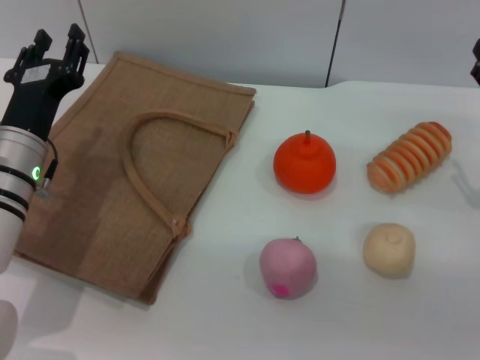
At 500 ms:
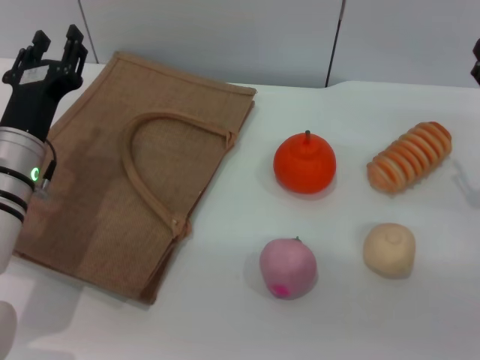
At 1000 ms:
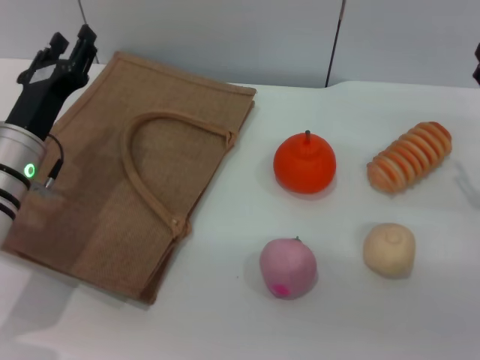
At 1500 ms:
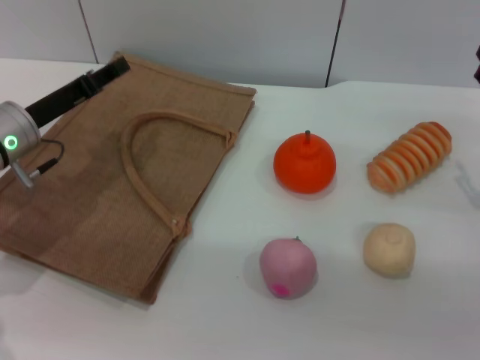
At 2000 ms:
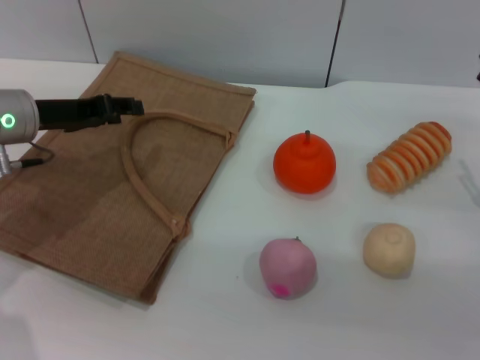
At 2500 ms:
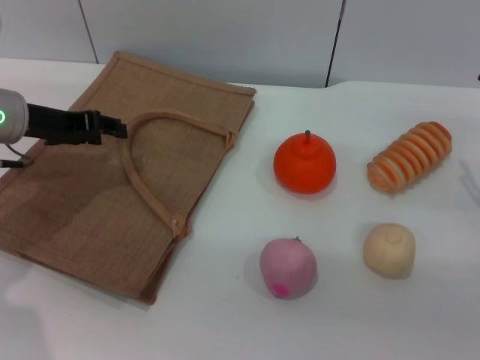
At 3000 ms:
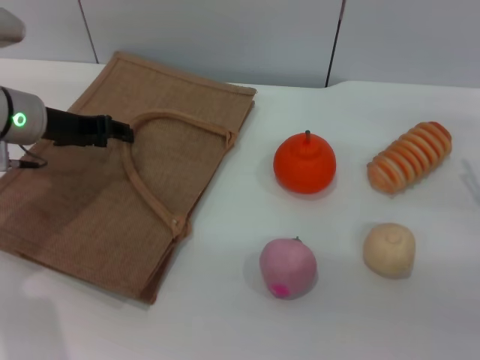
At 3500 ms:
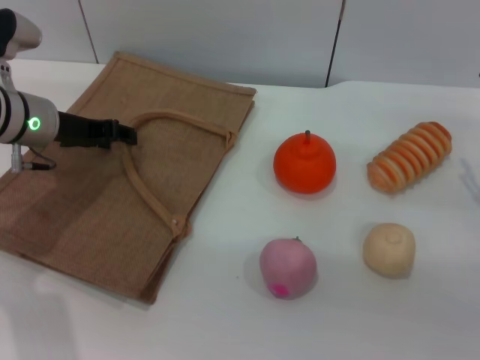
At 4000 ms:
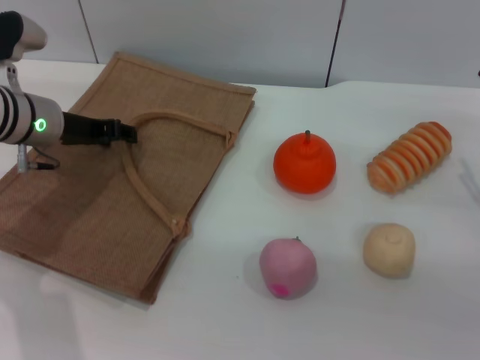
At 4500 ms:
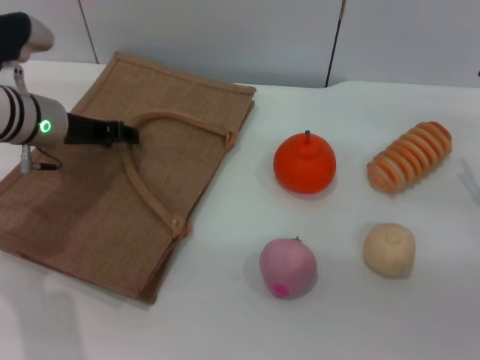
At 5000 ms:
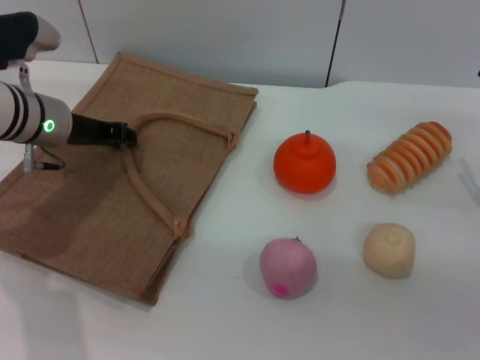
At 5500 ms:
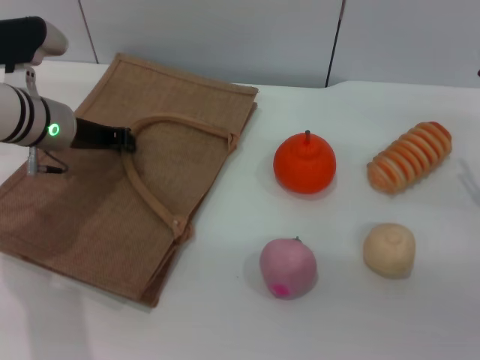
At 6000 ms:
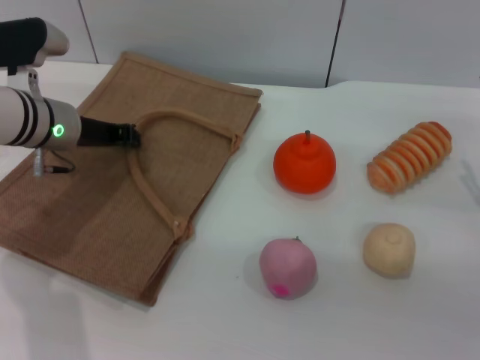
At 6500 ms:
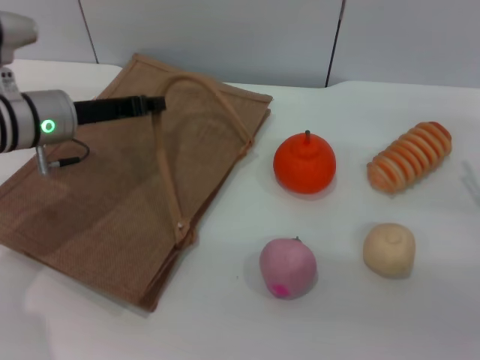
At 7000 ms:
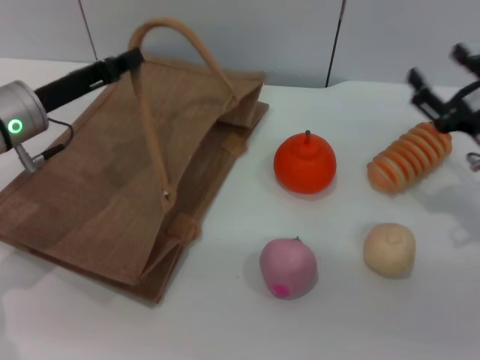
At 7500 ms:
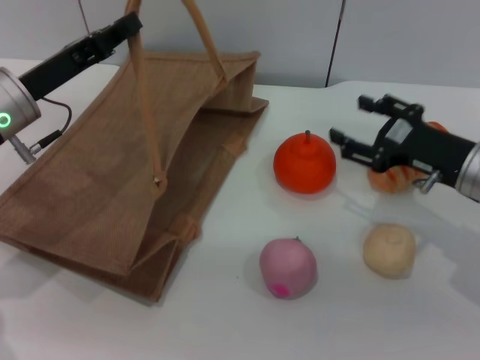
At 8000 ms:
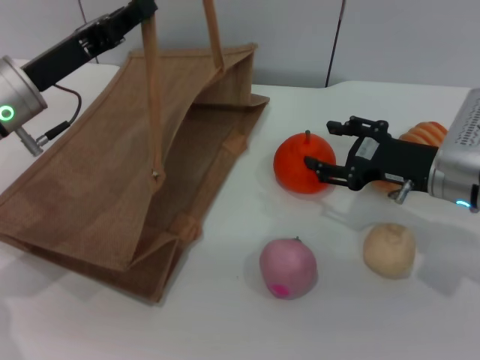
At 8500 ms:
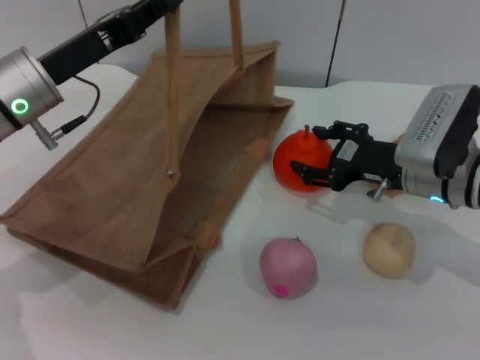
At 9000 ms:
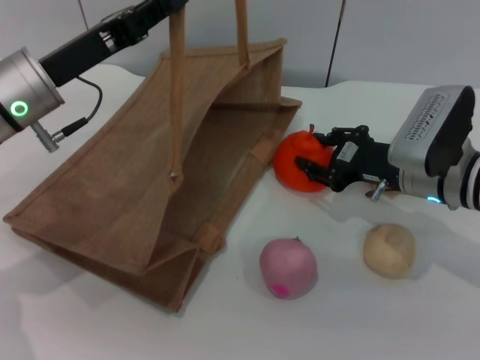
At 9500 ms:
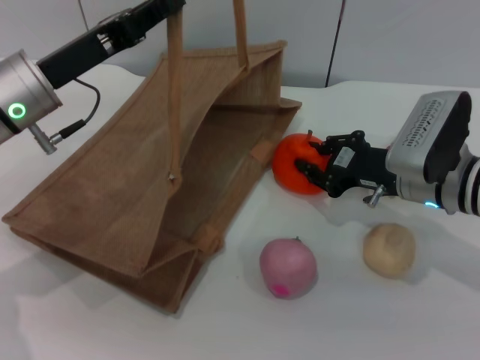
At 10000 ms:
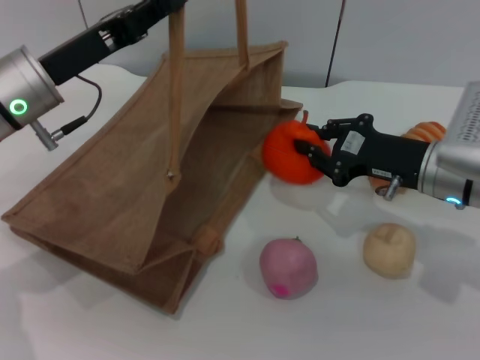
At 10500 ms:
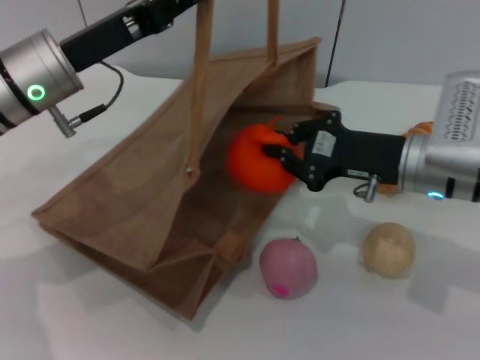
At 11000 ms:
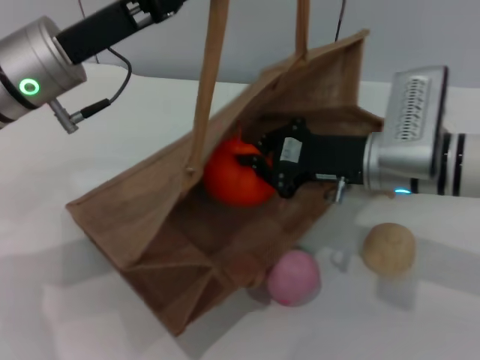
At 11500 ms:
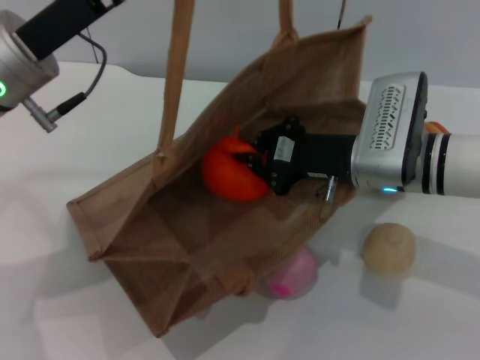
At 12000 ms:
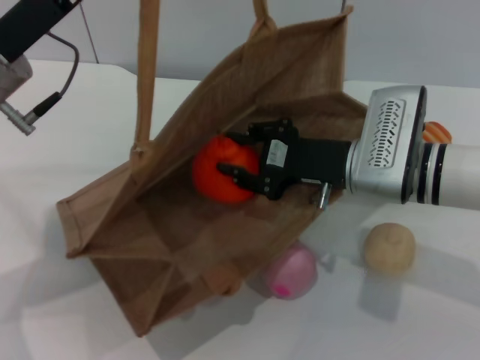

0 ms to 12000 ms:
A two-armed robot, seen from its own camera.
Task of the whole recording: pick up the orange and peach from the table and place it in the brown handbag.
Step, 0 ms to 6500 ms: Lift the woven bag with the left gripper to open it.
Step, 7000 ms to 9500 ms: Pick up the orange with the right gripper.
0 ms to 2000 ms: The left gripper is displaced upward and forward by roughly 10 cm.
2000 ms to 4000 ms: There are only small adjustments of the grippers.
4000 ms to 6000 ms: The left gripper closes up.
6000 ms to 8000 ms: The right gripper is displaced to the left by roughly 10 cm. Meanwhile the left gripper is displaced backward by approximately 5 cm.
8000 ms to 10000 ms: The right gripper closes its fingers.
10000 ms to 12000 ms: The right gripper moves to the left, about 5 cm.

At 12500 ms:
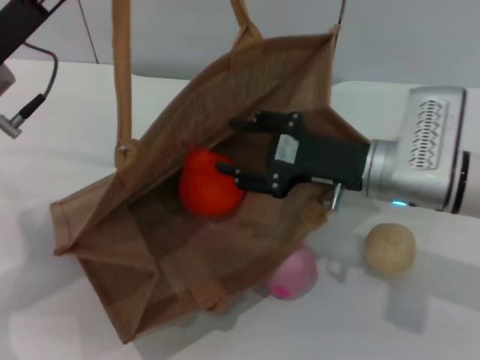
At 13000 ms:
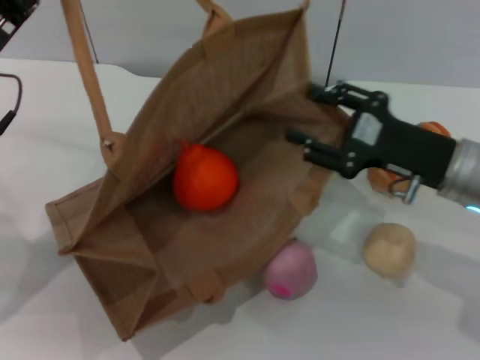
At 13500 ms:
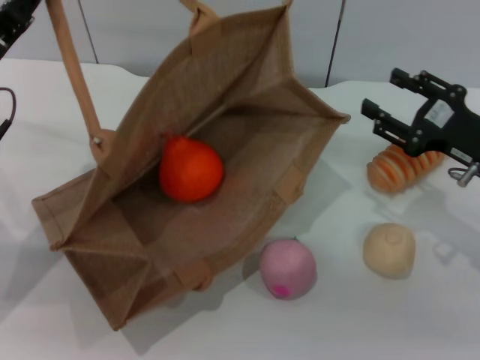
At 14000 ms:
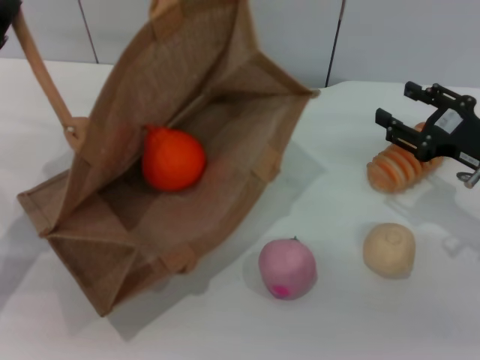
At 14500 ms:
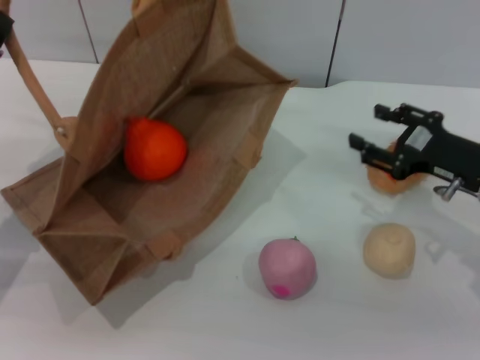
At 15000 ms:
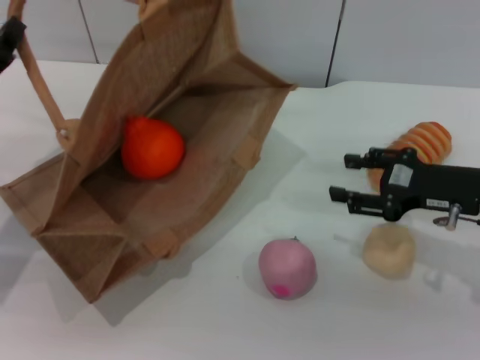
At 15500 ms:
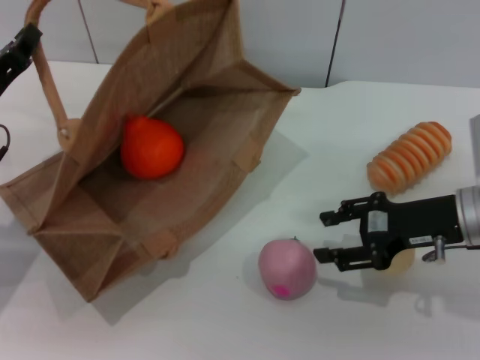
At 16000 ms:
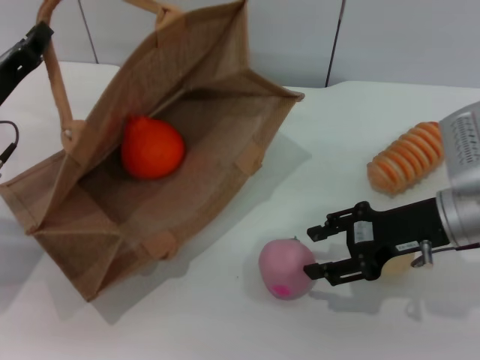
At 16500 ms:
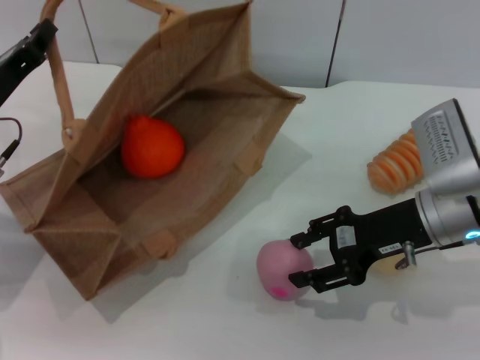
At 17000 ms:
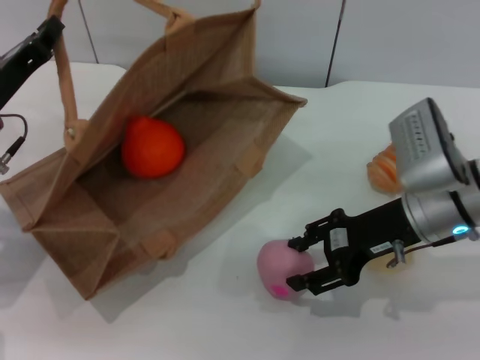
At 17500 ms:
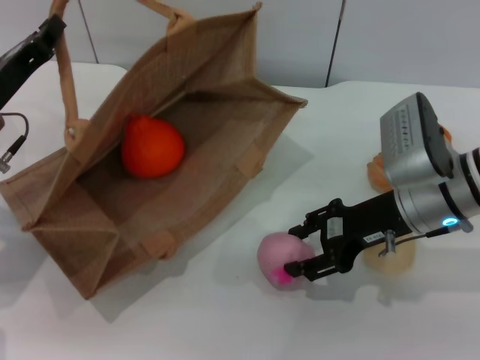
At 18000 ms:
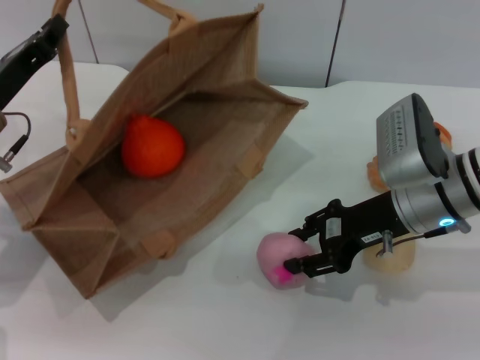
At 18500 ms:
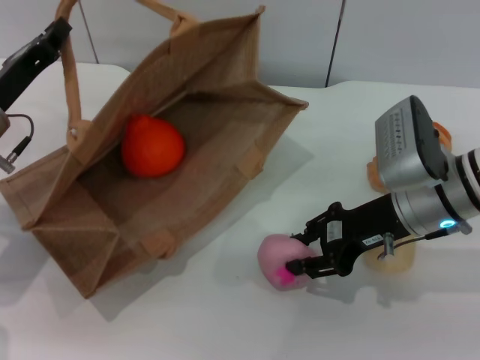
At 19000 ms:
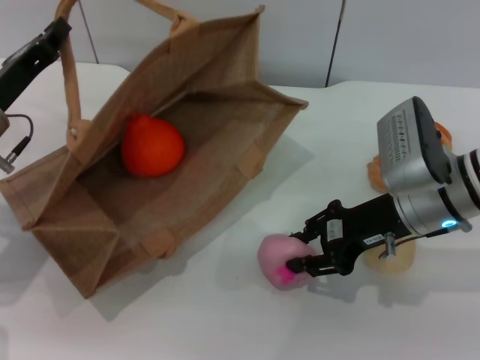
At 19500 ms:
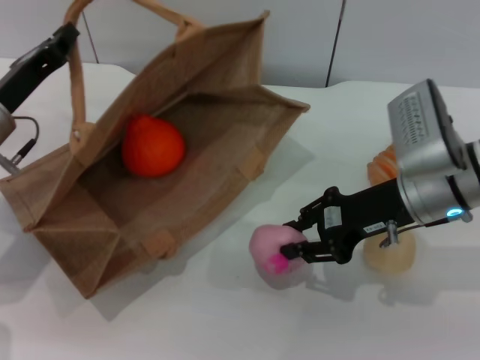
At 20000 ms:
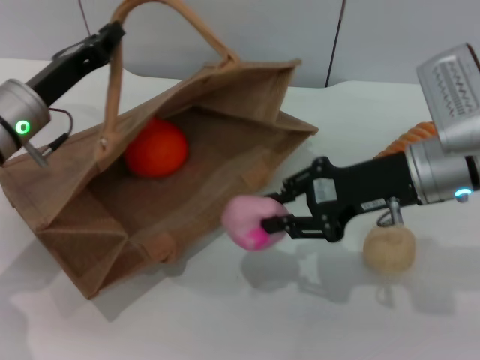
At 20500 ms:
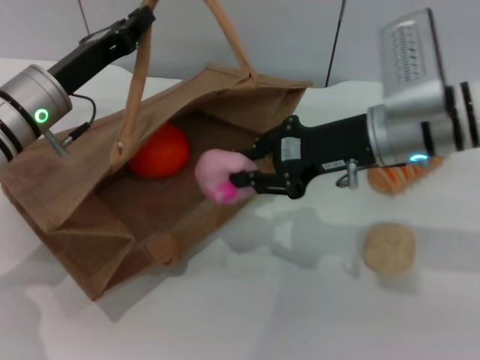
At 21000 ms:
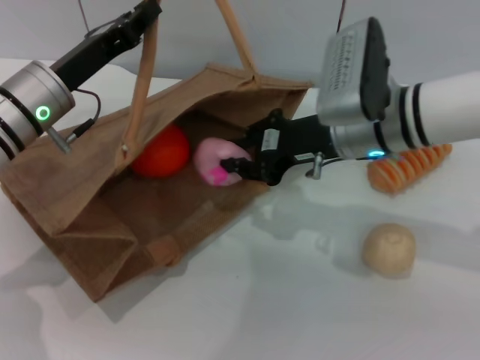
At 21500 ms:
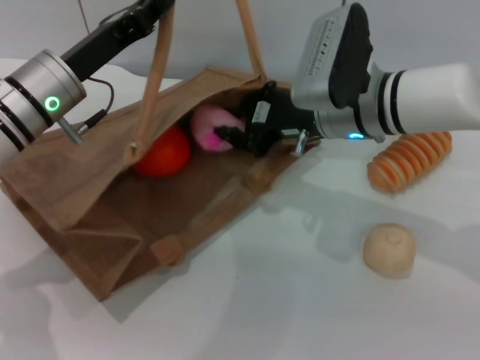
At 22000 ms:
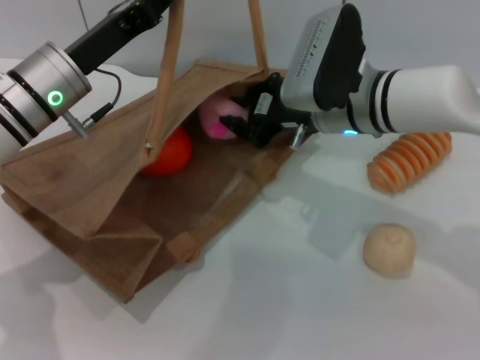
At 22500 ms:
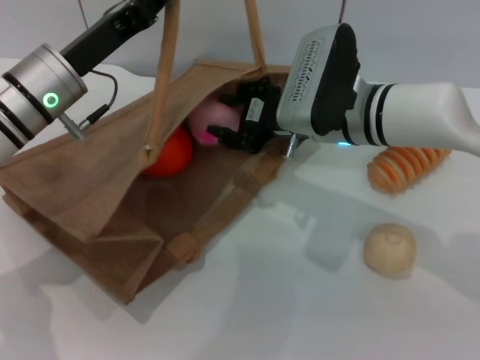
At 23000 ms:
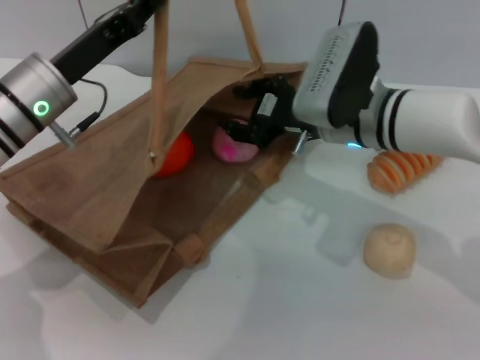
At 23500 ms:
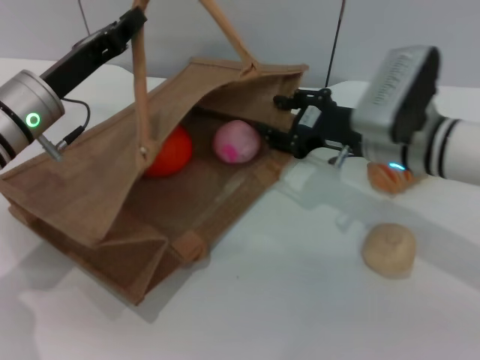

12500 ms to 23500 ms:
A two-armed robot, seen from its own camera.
Task of the whole recording: pick up the orange and peach from the table and place it in the brown handbag.
Step, 13000 ms to 19500 ms: Pick up the peach with the right gripper.
Step, 20000 ms to 23000 ms: Place the peach into the woven bag with the right gripper.
12500 ms to 14500 ms: The right gripper travels to the right by roughly 10 cm; the left gripper shifts some 10 cm downward and to the left.
14500 ms to 16000 ms: The right gripper moves about 5 cm.
16000 ms to 18000 ms: The grippers stay close to where they were, moving slightly.
18000 ms to 20000 ms: The right gripper closes.
20000 ms to 21500 ms: The right gripper is displaced to the left and forward by some 10 cm.
21500 ms to 23500 ms: The right gripper shifts approximately 5 cm to the right, and opens.

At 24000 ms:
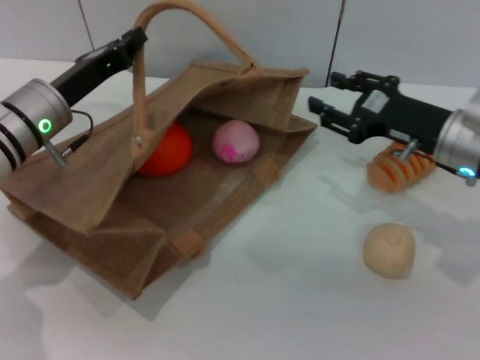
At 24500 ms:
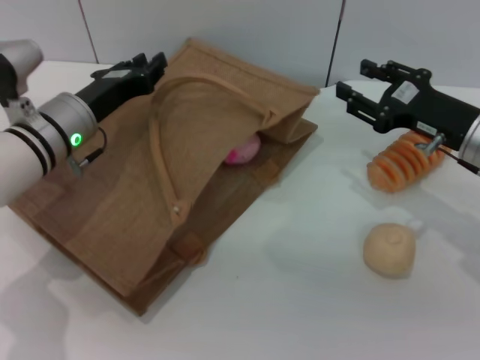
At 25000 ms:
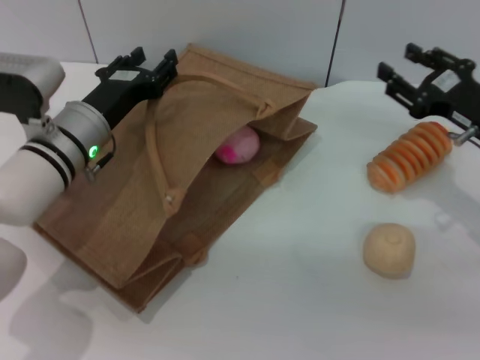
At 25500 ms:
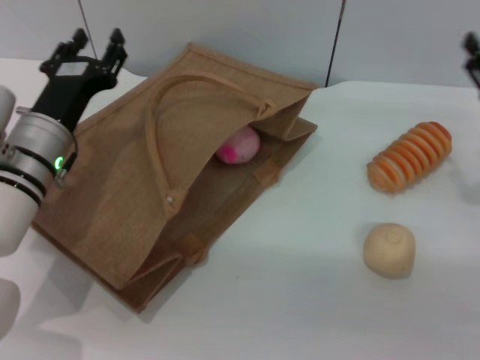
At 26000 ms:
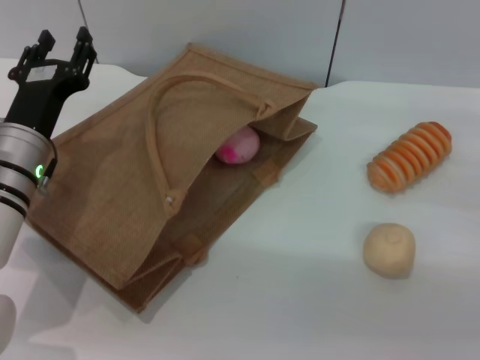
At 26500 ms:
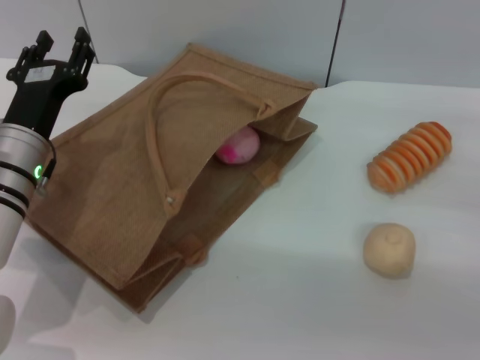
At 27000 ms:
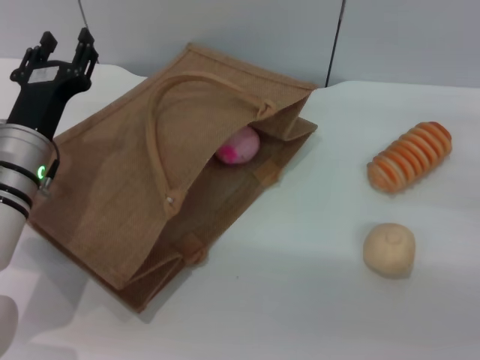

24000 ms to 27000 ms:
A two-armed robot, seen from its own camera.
Task of the whole recording: pick up the orange and peach from the table and place it in the brown handbag.
24000 ms to 25500 ms: The right gripper heads to the right, covering approximately 10 cm; the left gripper opens its fingers.
25500 ms to 27000 ms: There are only small adjustments of the grippers.
